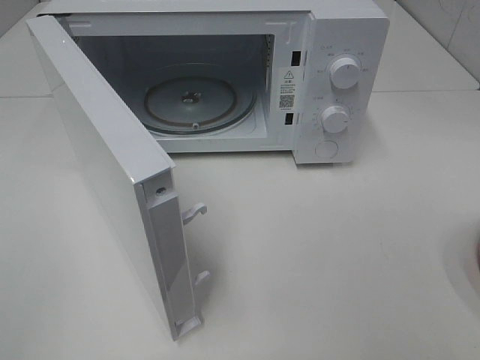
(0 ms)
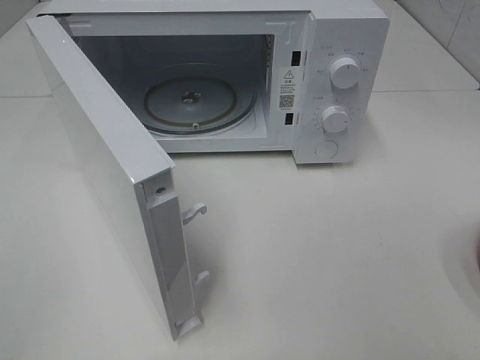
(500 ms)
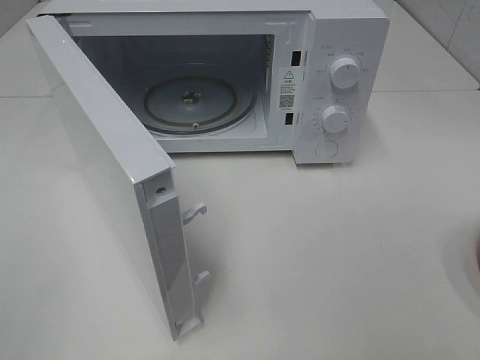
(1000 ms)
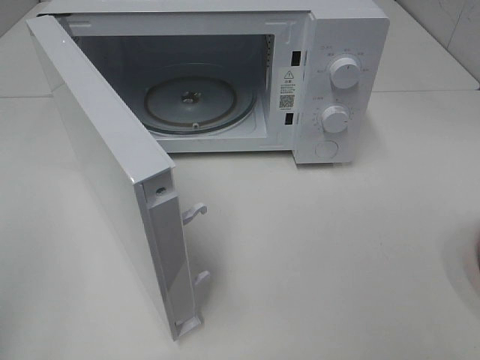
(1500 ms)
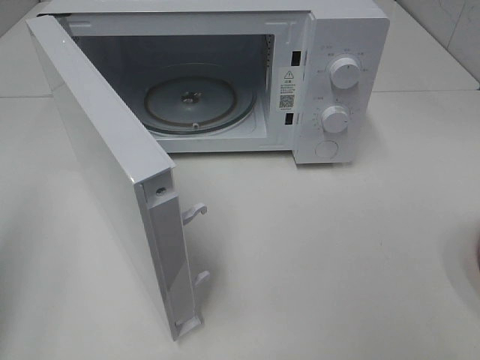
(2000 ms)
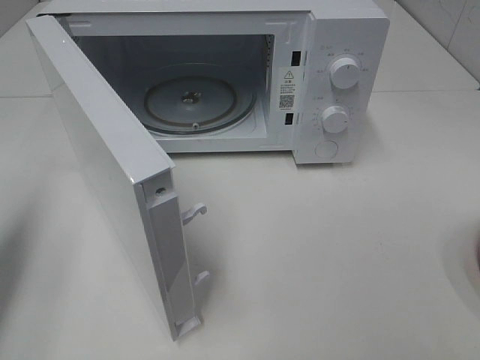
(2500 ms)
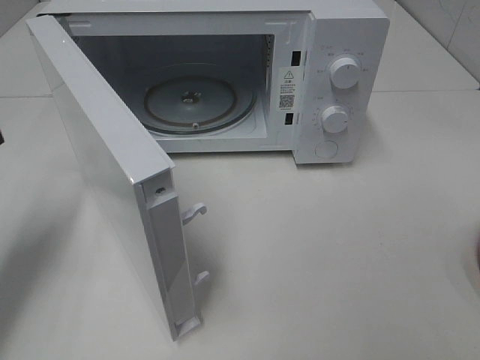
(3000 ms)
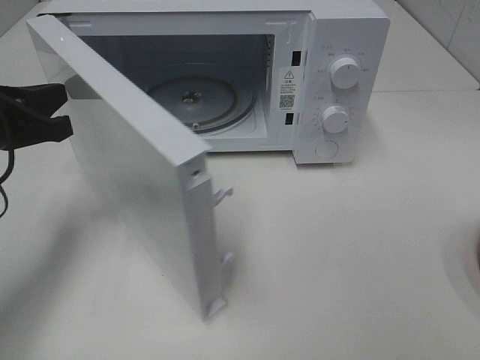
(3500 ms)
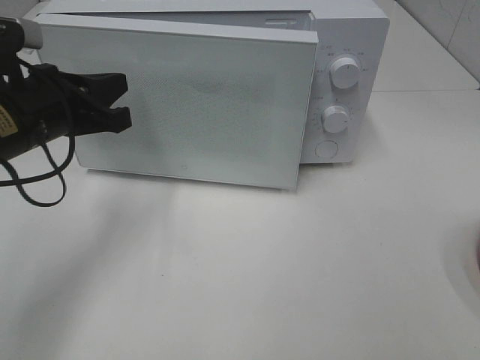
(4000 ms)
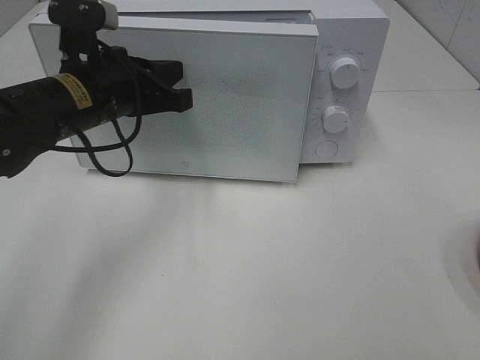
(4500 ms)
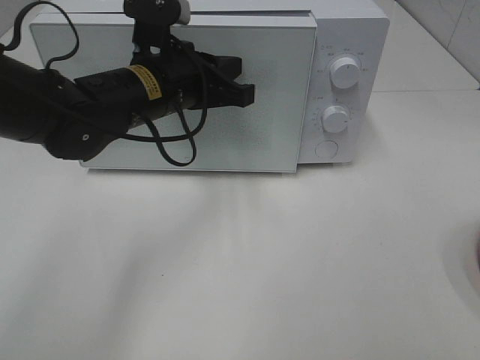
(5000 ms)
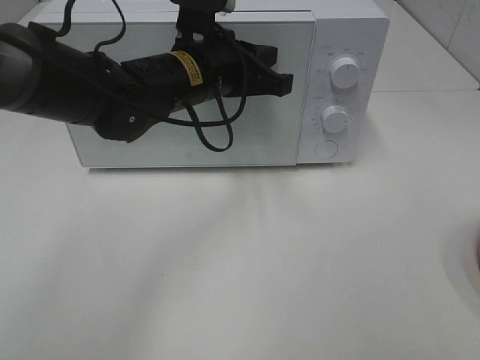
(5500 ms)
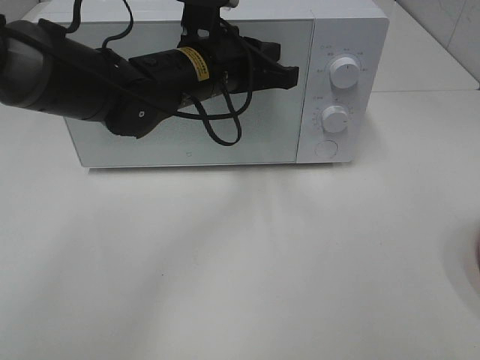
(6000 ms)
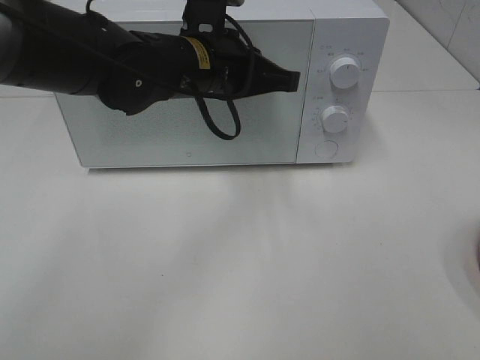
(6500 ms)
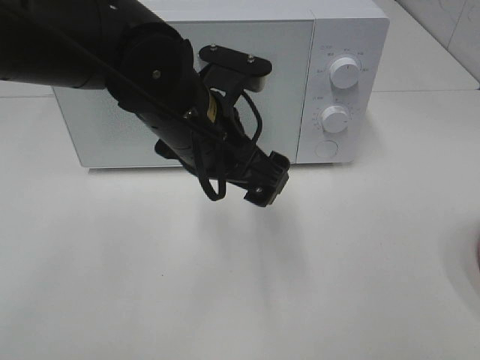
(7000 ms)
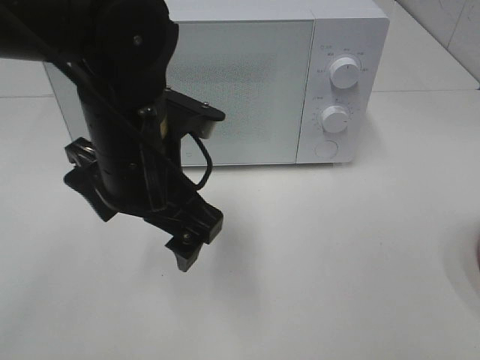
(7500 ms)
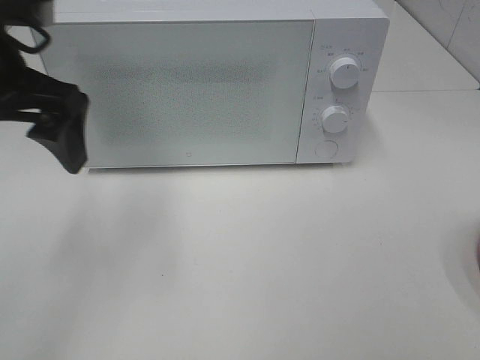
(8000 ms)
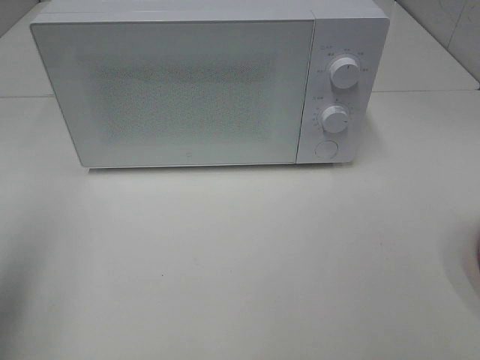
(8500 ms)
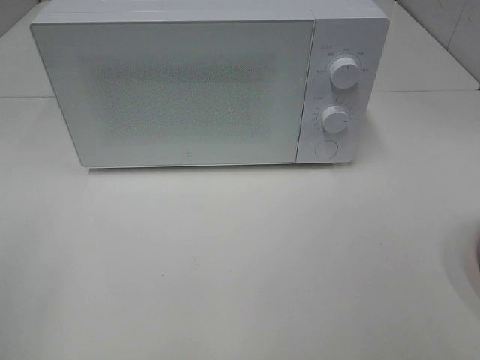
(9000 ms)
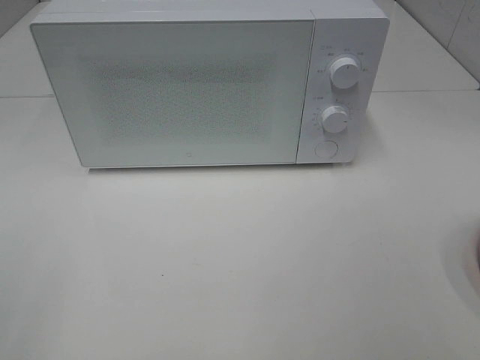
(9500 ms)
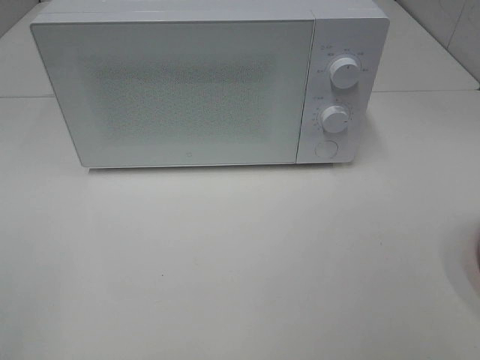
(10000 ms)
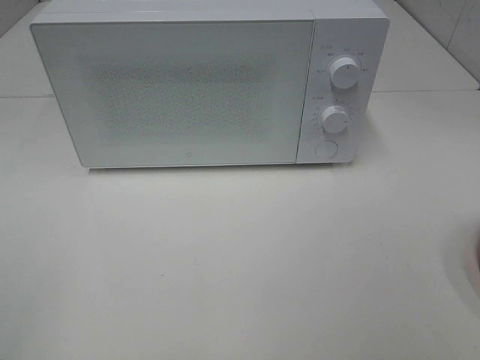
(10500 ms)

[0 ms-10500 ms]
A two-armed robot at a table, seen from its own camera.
Task of the whole recording: Heat the burger.
Step, 0 ms to 5500 ms: Left hand: close the microwave door.
2000 ms to 4000 ms: The left gripper moves forward, to the right and downward, some 25 cm.
4000 ms to 6500 ms: The left gripper moves to the right, some 15 cm.
6500 ms to 8500 ms: The left gripper shifts roughly 35 cm to the left and backward, and opens.
8500 ms to 10500 ms: The left gripper moves backward, some 15 cm.

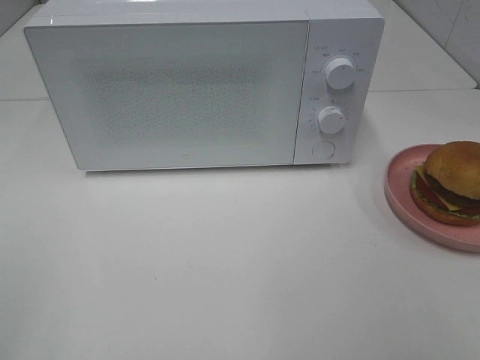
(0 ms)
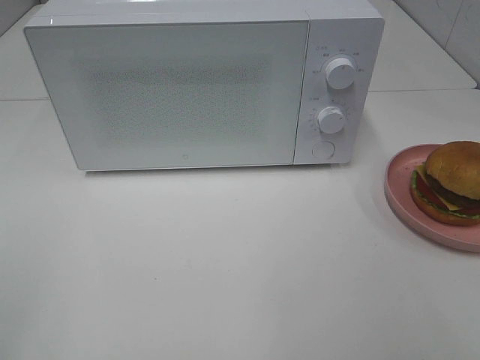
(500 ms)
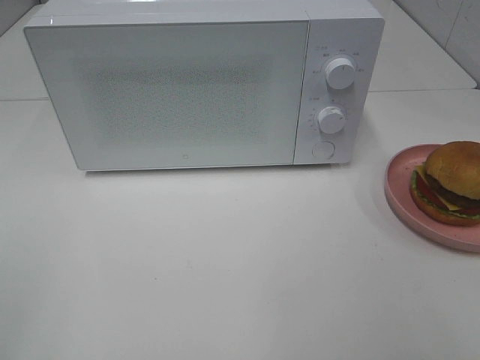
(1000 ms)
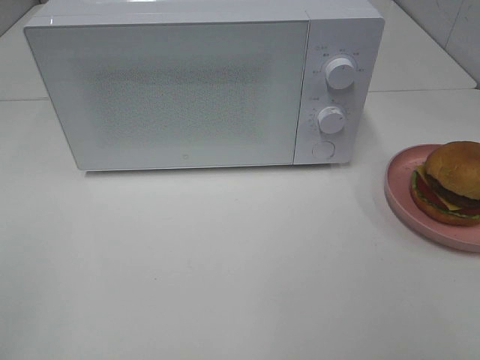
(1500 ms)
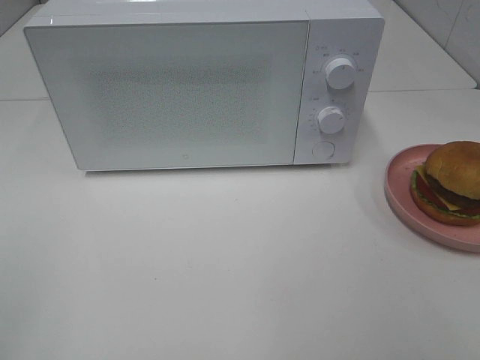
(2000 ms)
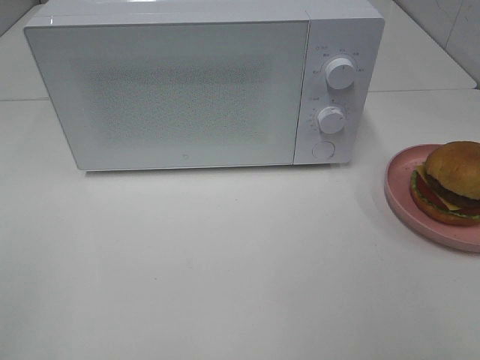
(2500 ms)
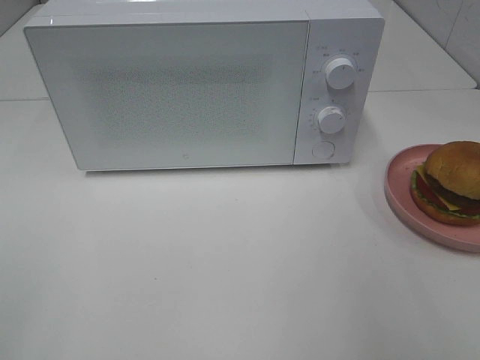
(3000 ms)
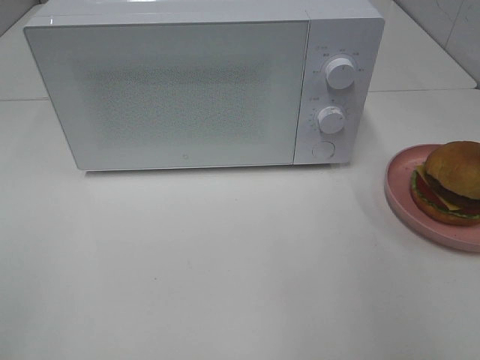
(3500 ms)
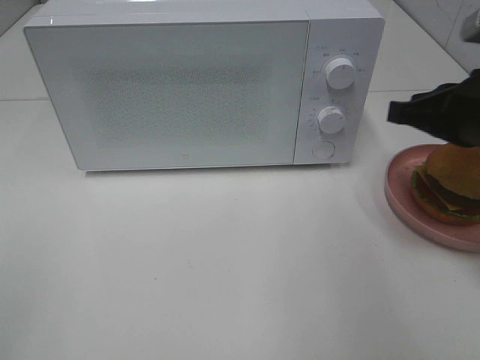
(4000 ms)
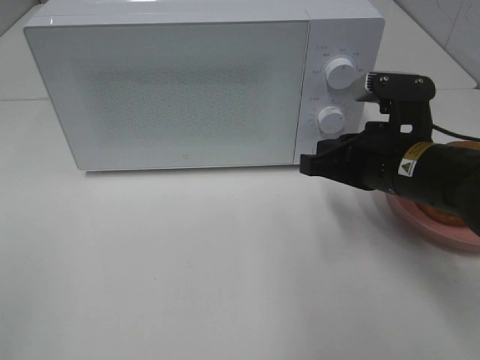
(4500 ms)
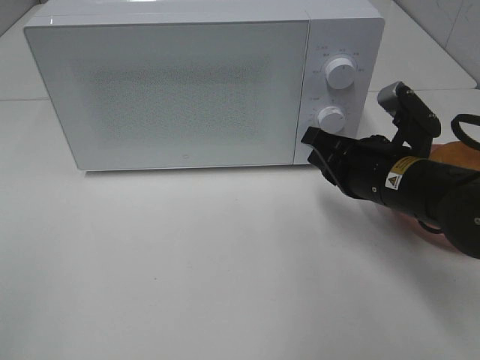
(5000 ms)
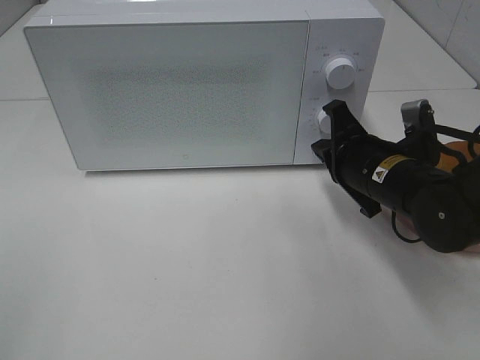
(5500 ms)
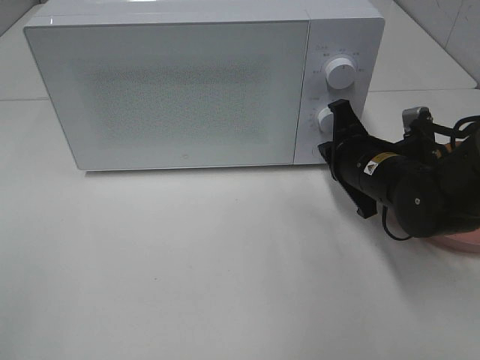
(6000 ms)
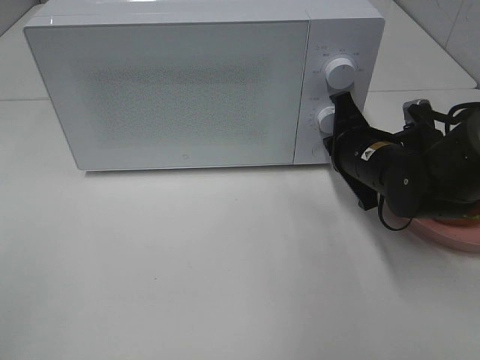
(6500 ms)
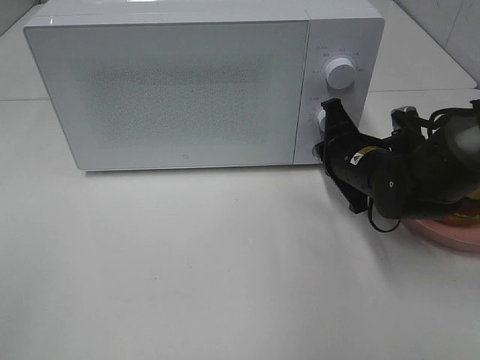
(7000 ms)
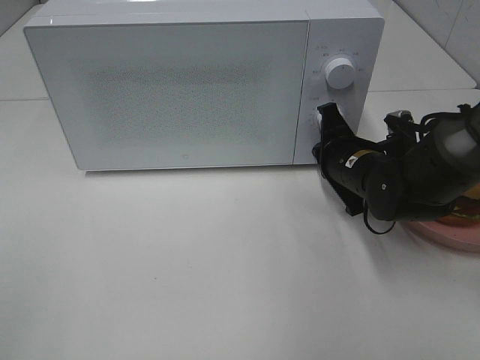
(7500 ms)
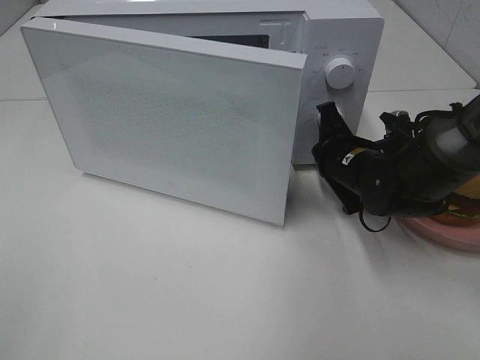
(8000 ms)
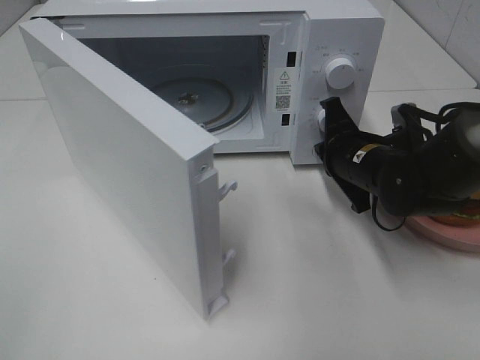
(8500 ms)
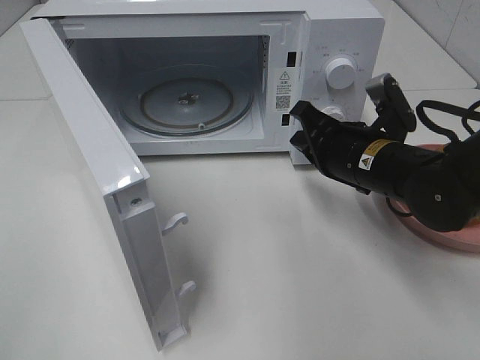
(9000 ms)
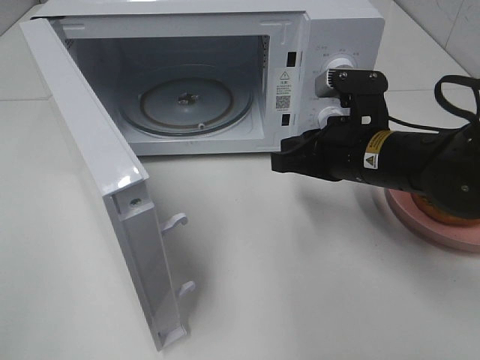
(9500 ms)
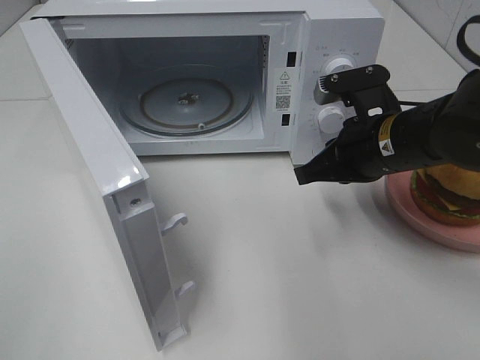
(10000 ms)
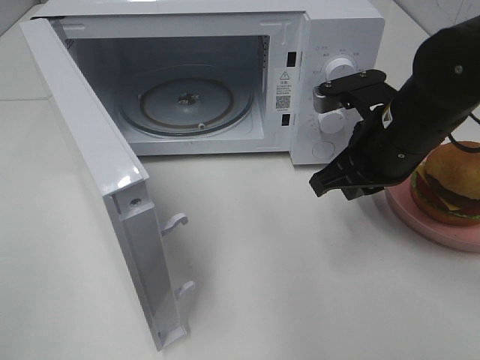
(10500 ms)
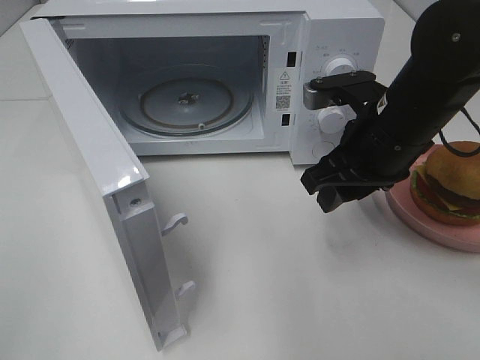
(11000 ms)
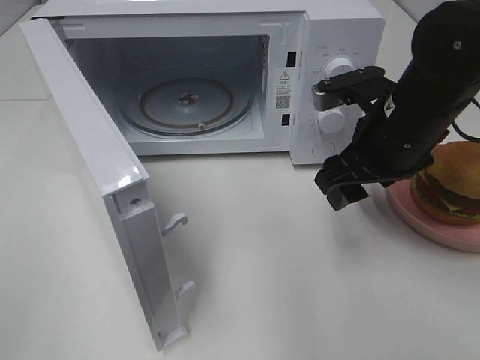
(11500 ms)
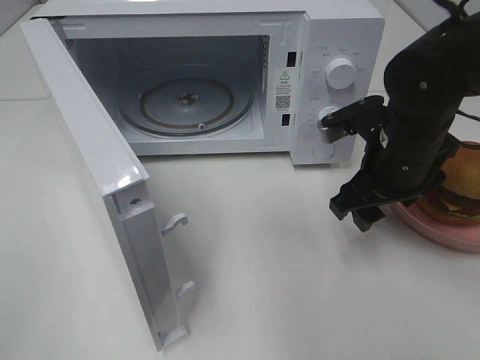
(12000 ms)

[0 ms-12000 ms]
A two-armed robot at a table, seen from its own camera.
Task of the whole recording: Heat the burger.
Step, 0 ms to 8500 ms: Right hand: press the switch.
0 ms to 2000 ms: Both grippers stay put.
2000 ms to 4000 ms: The right gripper goes some 25 cm forward, and closes.
4000 ms to 6000 ms: The right gripper goes some 15 cm downward, to the left and forward.
6000 ms to 8000 ms: The grippers make only small movements.
8000 ms to 10000 ms: The right gripper is displaced upward and backward by about 10 cm.
10000 ms to 12000 ms: The right gripper opens.

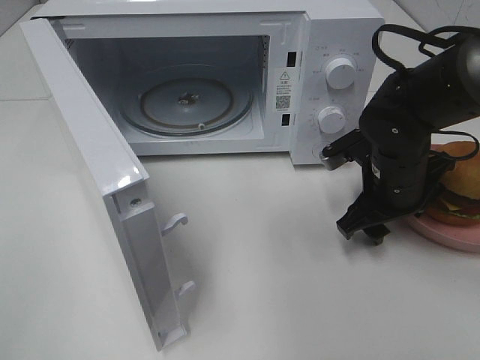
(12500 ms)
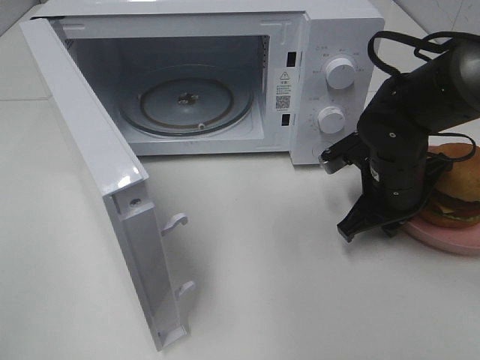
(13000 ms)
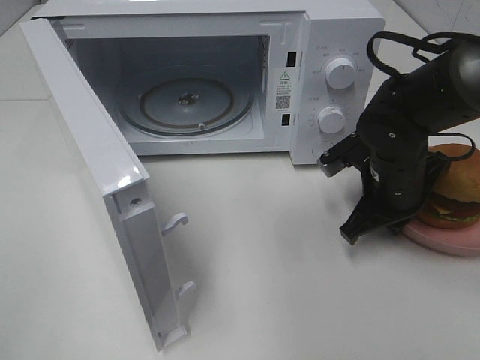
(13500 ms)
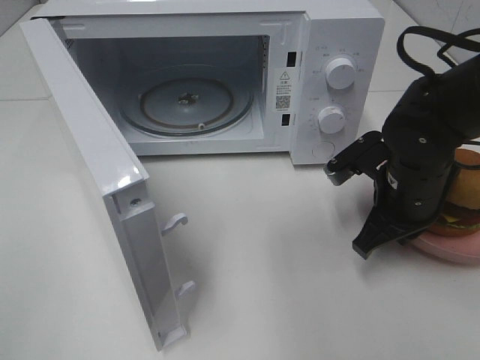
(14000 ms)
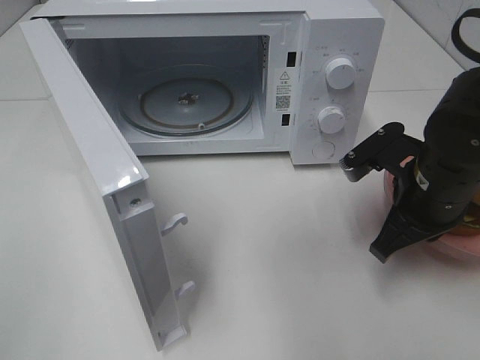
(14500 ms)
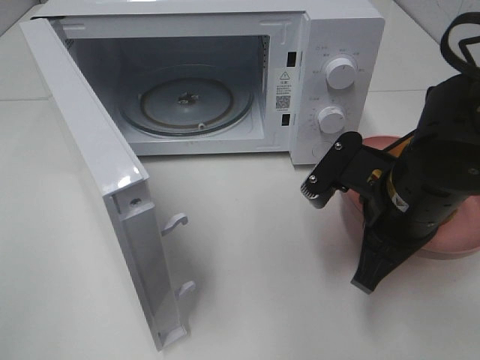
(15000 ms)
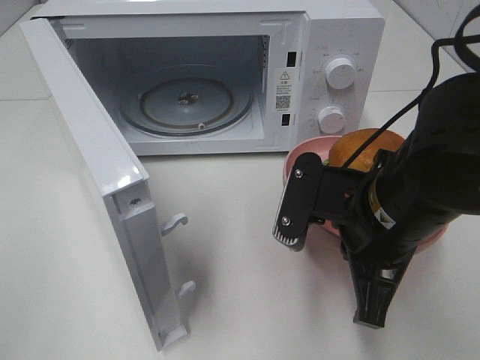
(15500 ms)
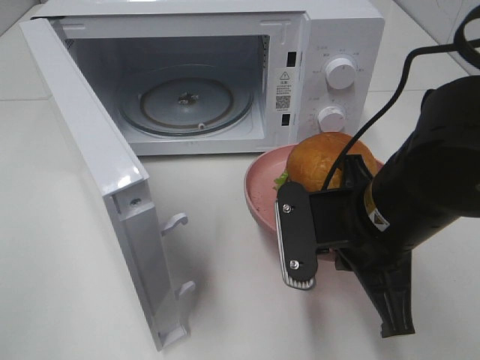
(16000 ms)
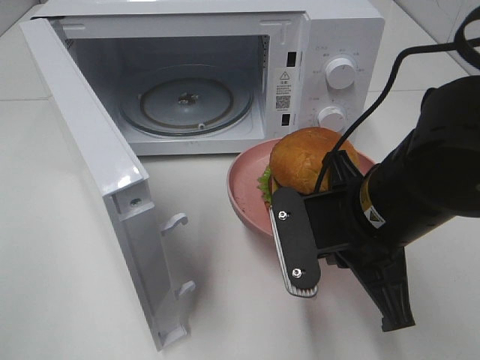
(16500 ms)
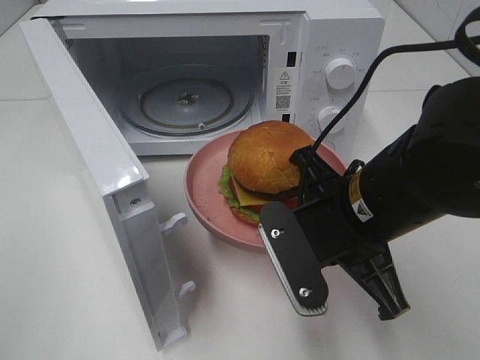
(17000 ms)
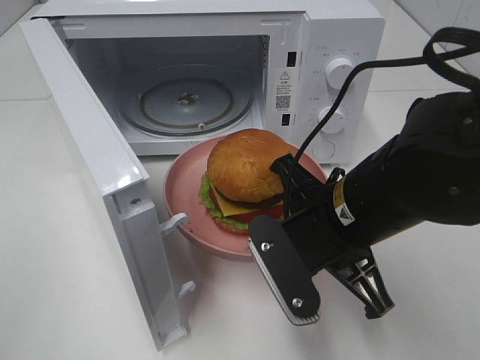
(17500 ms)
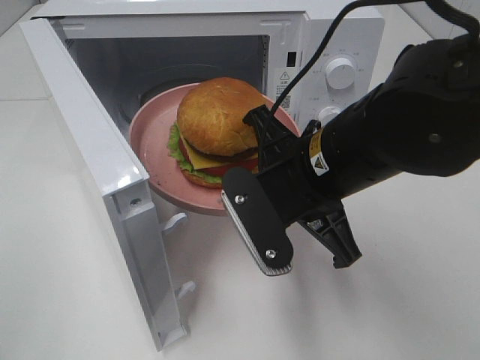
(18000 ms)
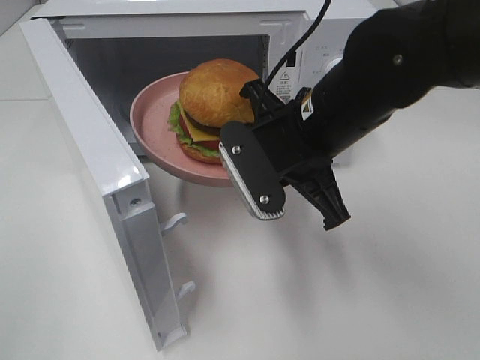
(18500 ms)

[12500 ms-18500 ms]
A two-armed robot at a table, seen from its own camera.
Task of the whole recording: Heat the burger.
12500 ms to 14500 ms: The right gripper shifts some 5 cm backward, and closes.
14500 ms to 16500 ms: The right gripper is displaced to the left and backward by roughly 10 cm.
16500 ms to 18500 ms: The right gripper moves forward, some 5 cm.
